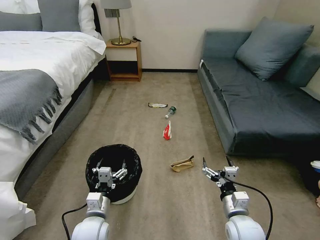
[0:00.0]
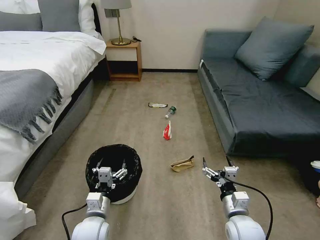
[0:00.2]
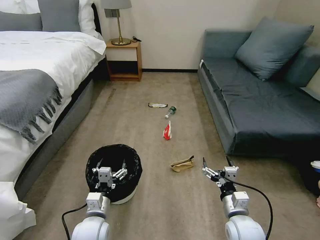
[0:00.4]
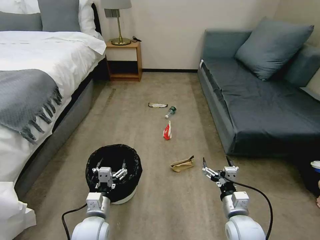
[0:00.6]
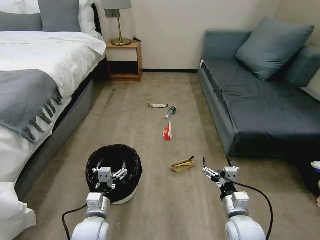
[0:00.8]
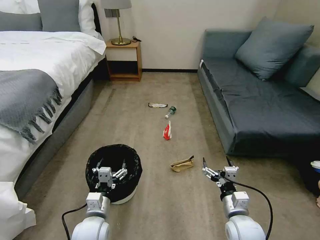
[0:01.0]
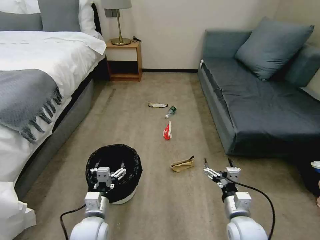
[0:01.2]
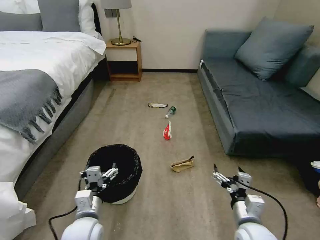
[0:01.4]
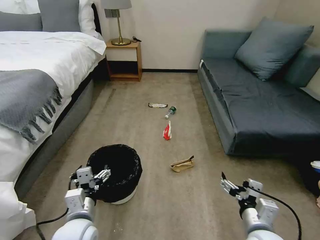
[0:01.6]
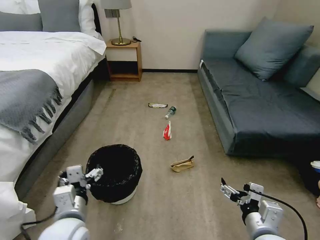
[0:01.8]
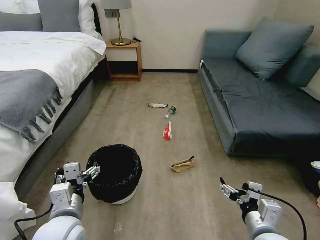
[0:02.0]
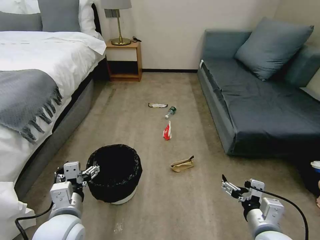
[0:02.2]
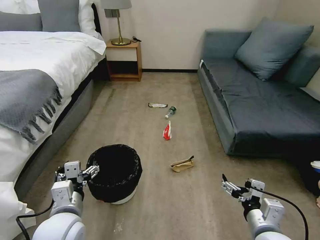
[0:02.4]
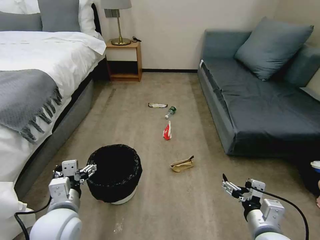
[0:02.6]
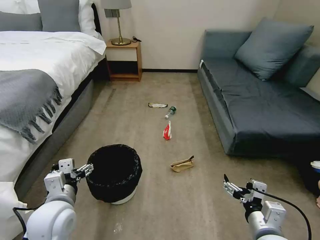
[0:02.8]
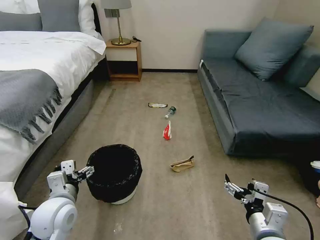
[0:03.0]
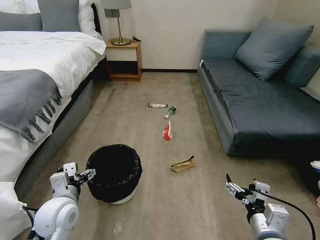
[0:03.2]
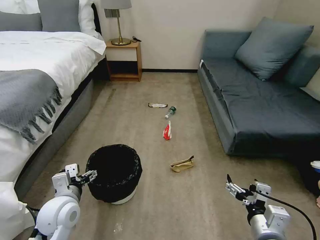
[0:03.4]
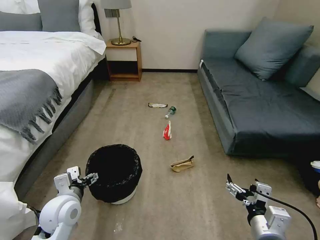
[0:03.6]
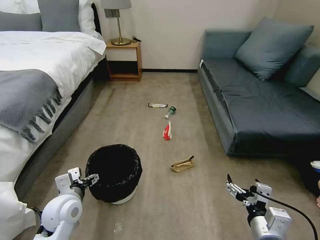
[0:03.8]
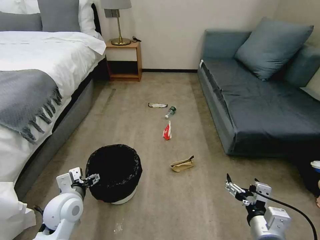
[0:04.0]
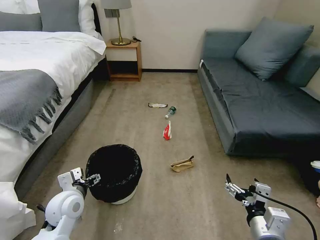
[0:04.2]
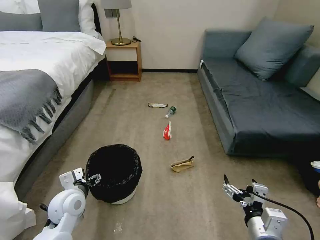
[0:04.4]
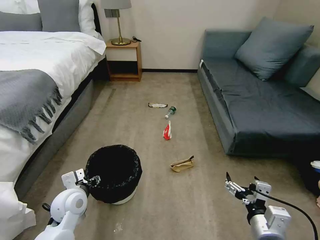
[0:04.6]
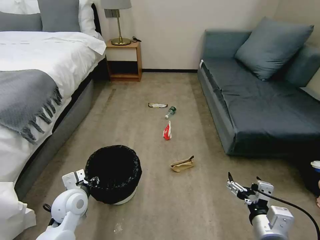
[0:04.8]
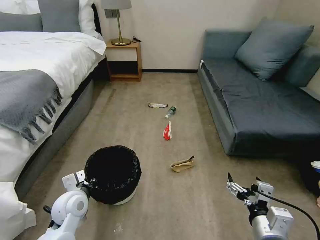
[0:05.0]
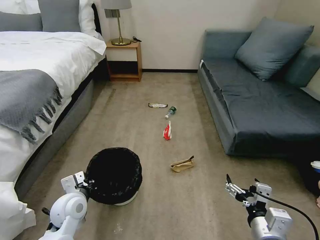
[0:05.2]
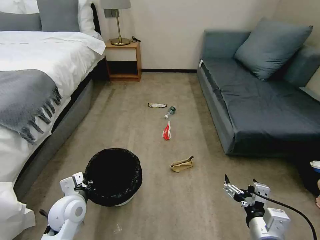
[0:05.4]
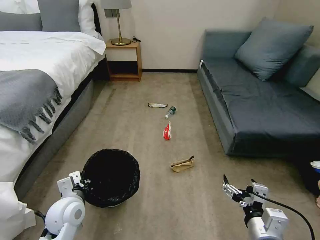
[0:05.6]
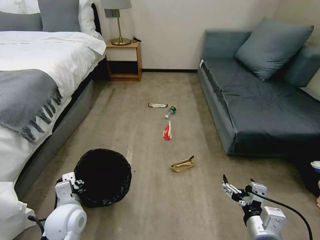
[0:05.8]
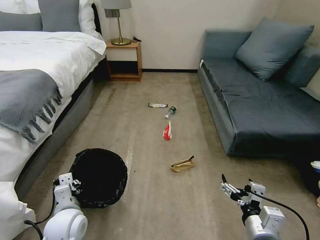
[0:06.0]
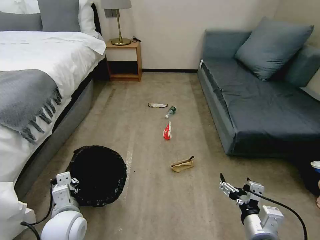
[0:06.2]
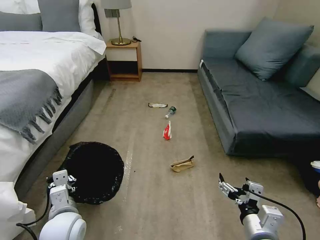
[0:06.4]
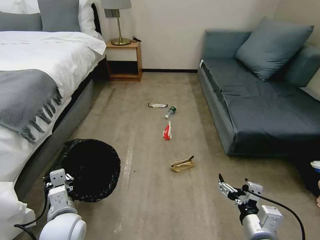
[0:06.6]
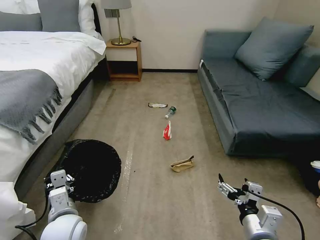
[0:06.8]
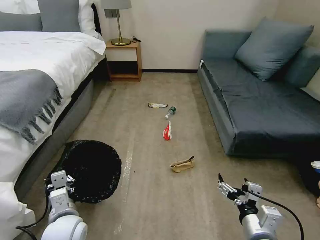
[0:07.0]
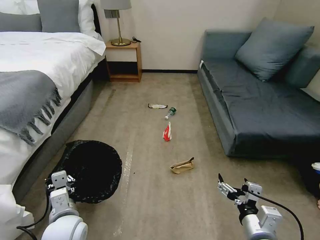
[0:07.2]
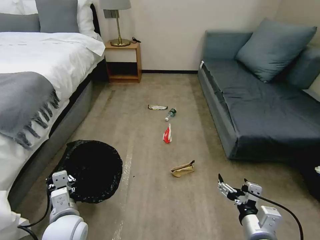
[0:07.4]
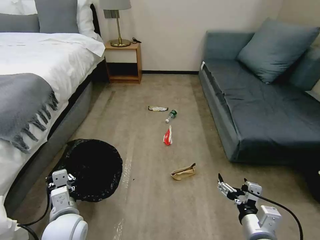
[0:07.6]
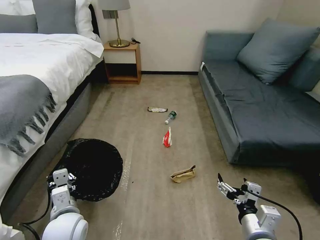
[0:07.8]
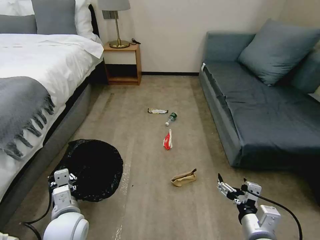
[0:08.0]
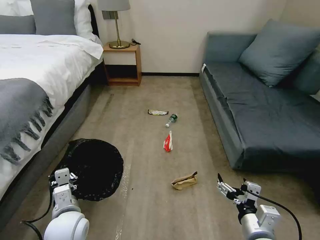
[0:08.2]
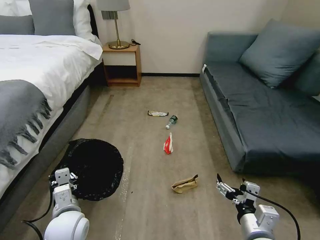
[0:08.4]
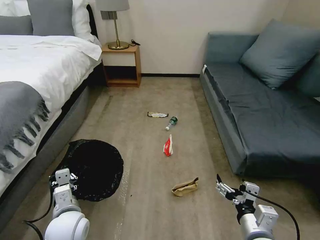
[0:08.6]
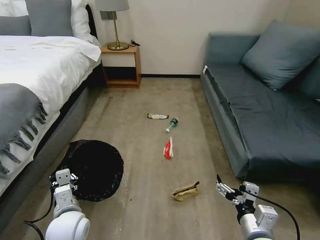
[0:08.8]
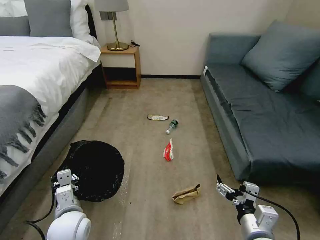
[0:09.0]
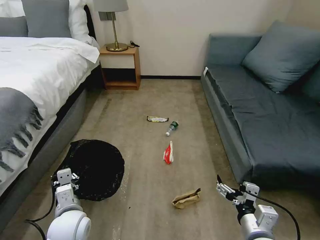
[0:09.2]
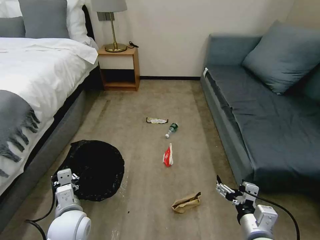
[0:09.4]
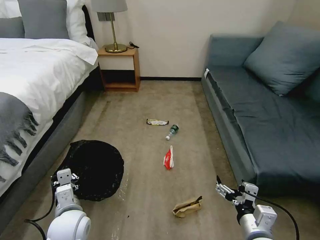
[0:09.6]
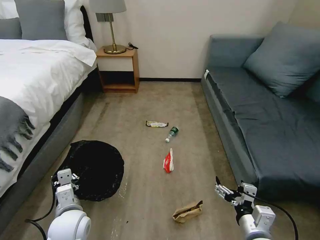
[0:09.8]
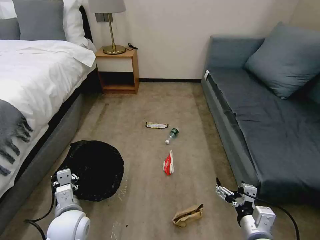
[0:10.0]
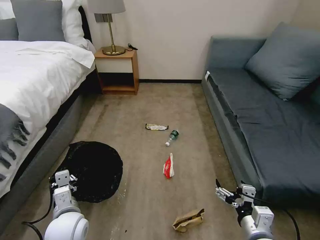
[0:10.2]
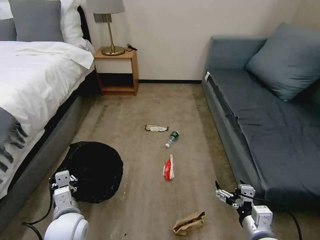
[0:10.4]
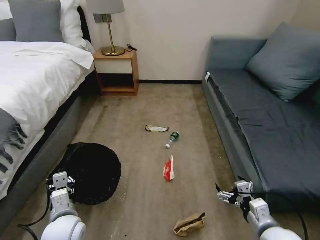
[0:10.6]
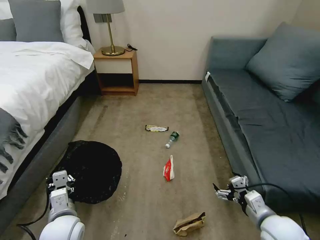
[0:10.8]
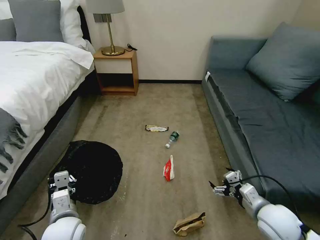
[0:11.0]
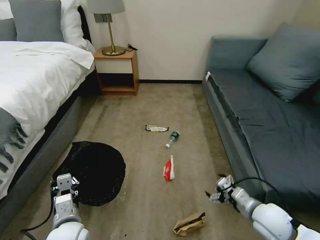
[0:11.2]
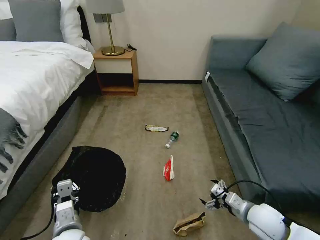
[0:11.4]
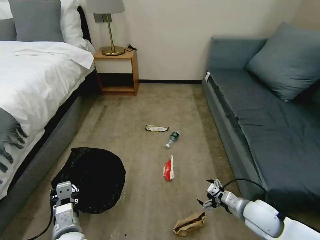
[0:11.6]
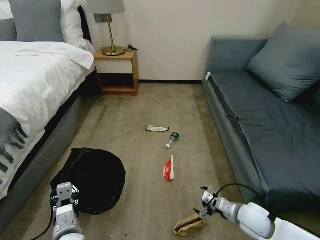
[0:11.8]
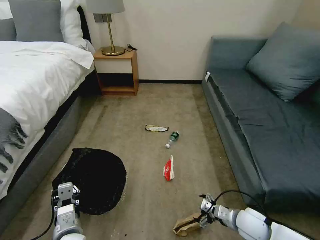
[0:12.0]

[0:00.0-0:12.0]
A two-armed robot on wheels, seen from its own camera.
Task of the whole recording: Pick up the trash bin, then pick up the garbage on the floor and place it into the trash bin.
0:01.6 to 0:03.0: The left gripper shifts approximately 5 cm to the left.
0:03.0 to 0:04.4: The left gripper ends up roughly 5 cm from where it was.
0:04.4 to 0:06.0: The left gripper goes some 5 cm backward, and closes up.
0:06.0 to 0:07.6: The grippers move only a little.
0:10.4 to 0:12.0: The left gripper moves approximately 5 cm. Meanwhile the right gripper shifts approximately 15 cm forward and downward.

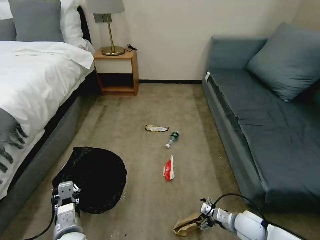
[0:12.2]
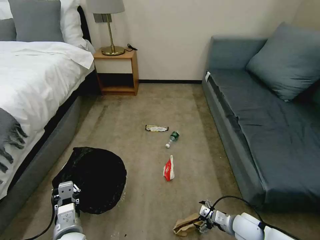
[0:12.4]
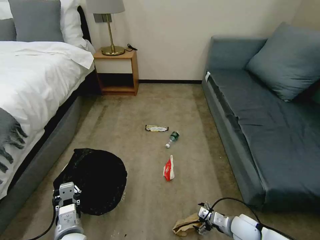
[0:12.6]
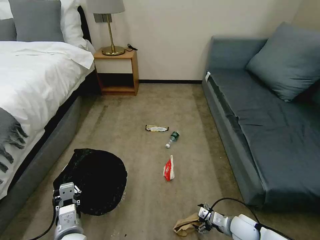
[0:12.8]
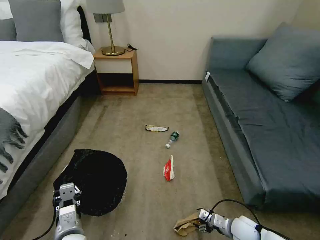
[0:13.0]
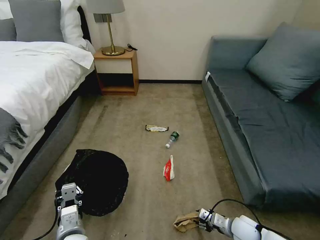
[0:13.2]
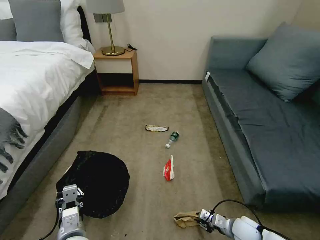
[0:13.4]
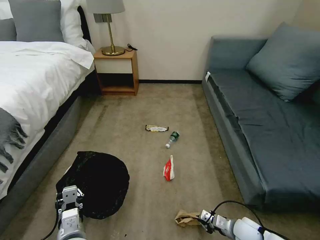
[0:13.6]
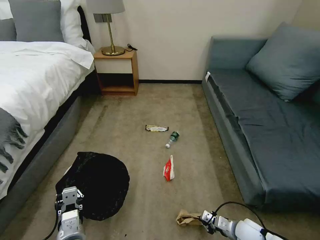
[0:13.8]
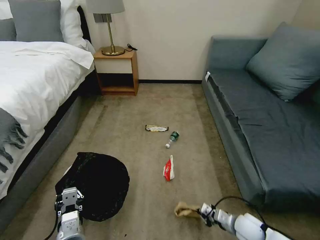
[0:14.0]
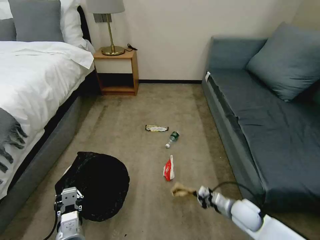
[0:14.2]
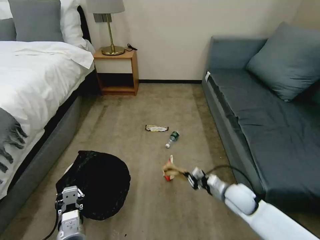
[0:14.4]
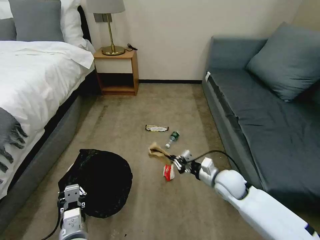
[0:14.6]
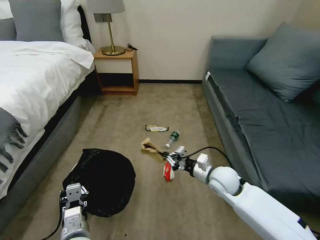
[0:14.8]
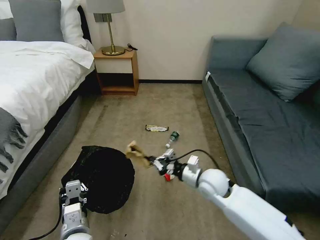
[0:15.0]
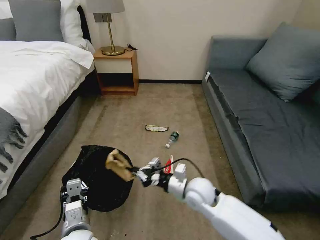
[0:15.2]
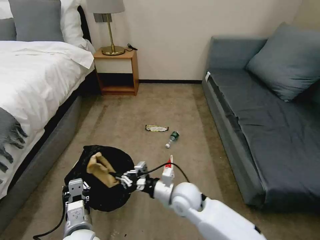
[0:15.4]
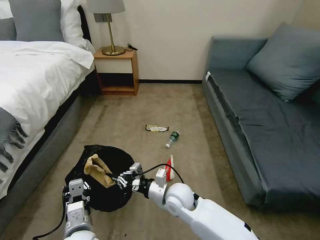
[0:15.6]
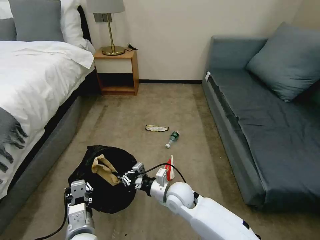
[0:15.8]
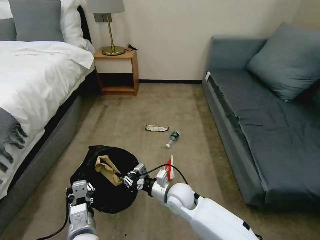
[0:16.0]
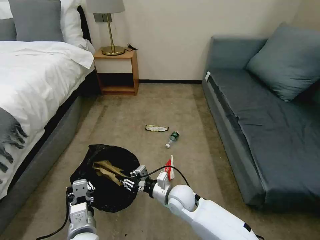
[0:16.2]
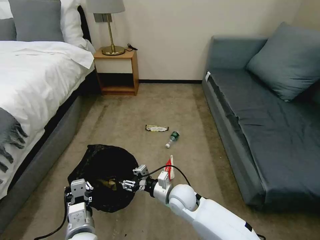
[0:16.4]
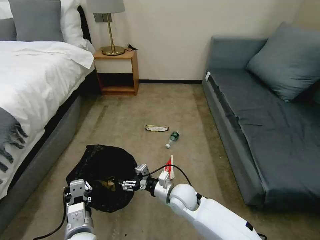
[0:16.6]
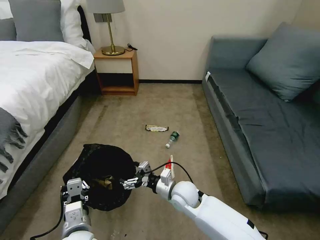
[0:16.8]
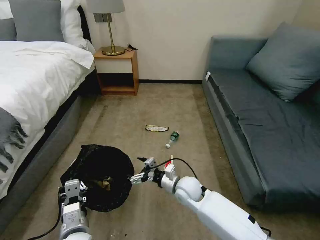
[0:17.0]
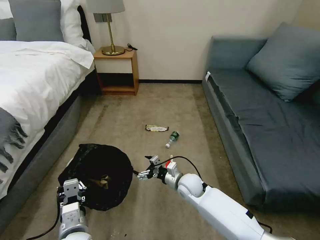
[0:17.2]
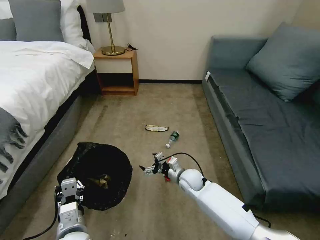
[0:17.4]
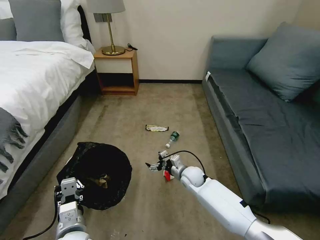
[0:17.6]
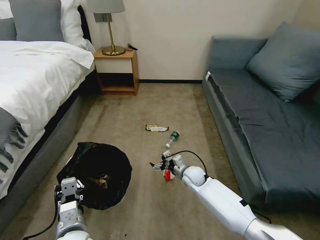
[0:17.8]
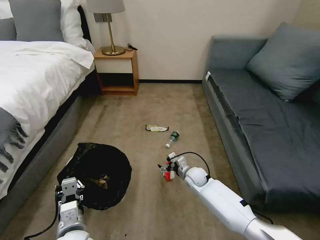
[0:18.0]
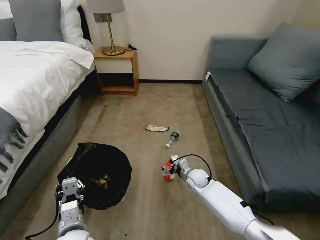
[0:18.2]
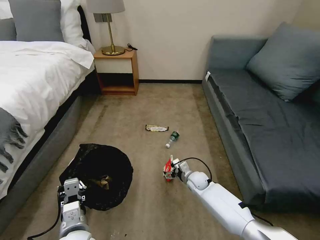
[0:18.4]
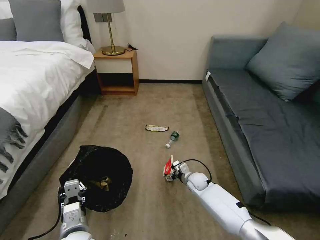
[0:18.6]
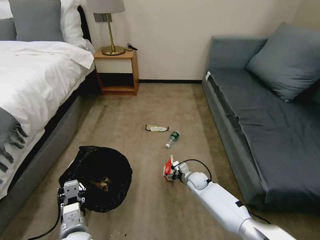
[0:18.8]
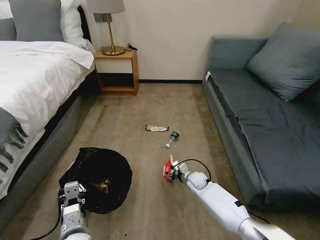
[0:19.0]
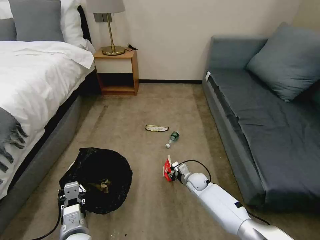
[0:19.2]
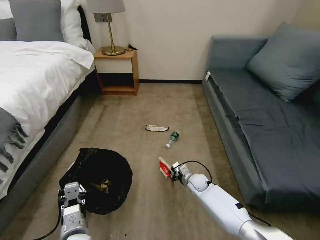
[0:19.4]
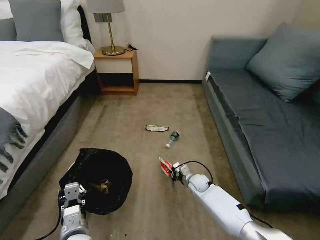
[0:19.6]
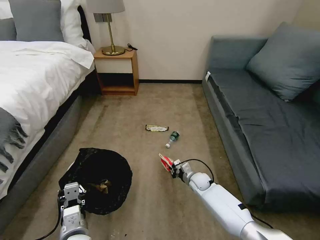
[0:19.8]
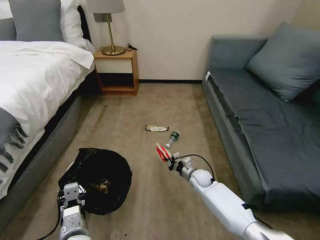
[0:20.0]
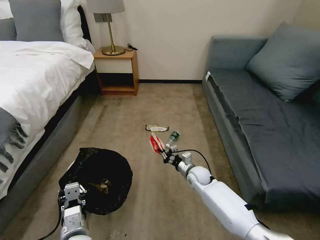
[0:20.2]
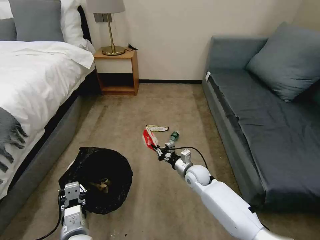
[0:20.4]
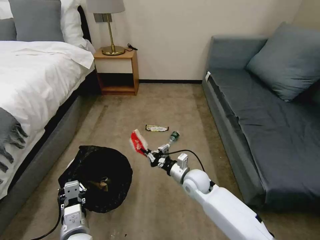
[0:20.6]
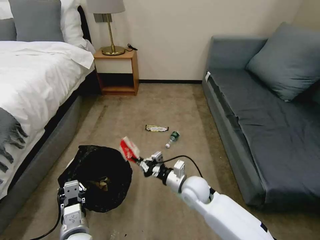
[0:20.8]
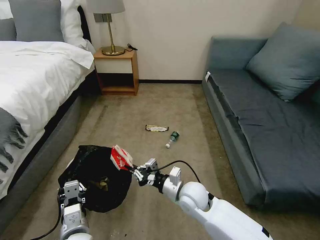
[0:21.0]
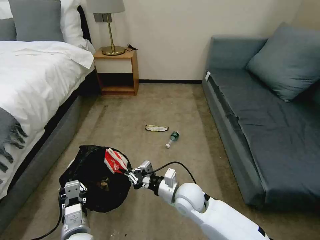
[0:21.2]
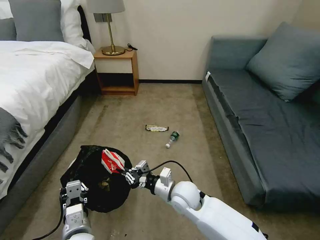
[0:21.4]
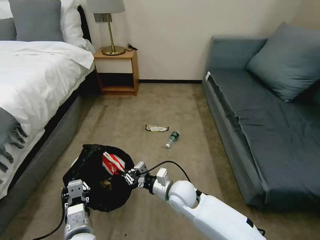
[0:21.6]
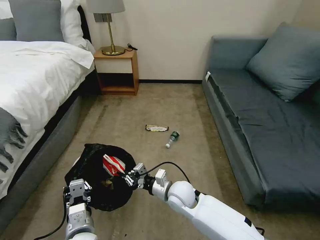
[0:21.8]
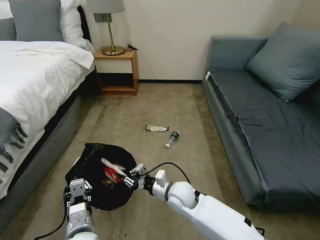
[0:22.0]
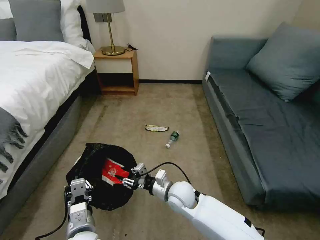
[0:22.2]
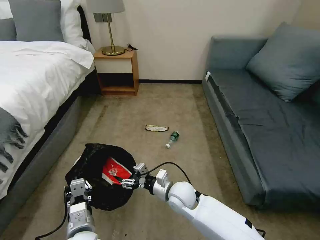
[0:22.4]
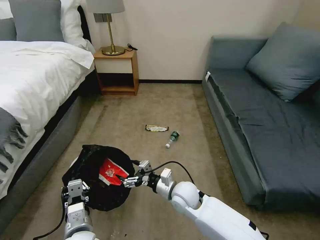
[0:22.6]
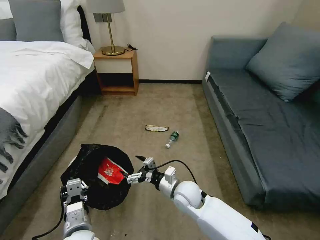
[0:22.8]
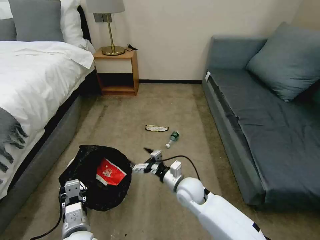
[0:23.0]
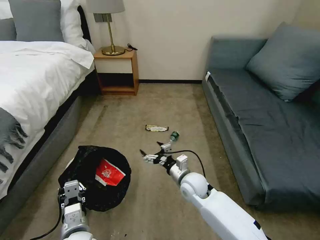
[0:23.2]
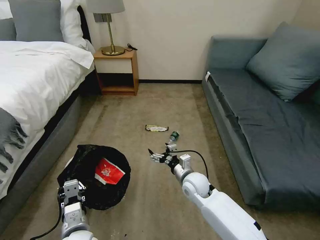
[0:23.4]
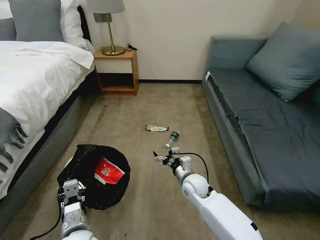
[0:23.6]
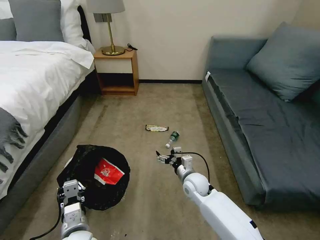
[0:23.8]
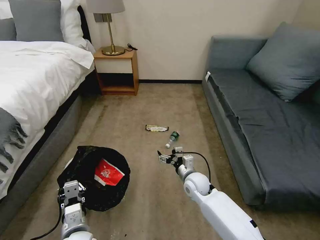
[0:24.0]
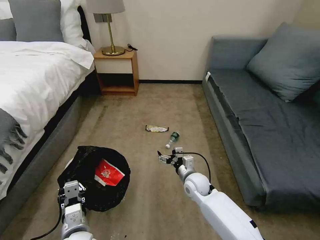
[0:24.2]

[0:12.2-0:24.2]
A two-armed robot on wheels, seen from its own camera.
Task of the whole recording: Pick up the trash bin, then pick up the garbage on the floor and place it into the trash bin.
0:12.2 to 0:13.8: The right gripper closes.
0:13.8 to 0:15.2: The right gripper heads to the left, upward and forward, covering some 25 cm.
0:15.2 to 0:16.6: The right gripper changes place by about 5 cm, and opens.
0:16.6 to 0:18.2: The right gripper moves forward, to the right and downward, roughly 15 cm.
0:18.2 to 0:19.8: The right gripper closes up.
0:19.8 to 0:21.2: The right gripper heads upward, backward and to the left, covering some 20 cm.
0:21.2 to 0:22.6: The right gripper opens its fingers.
0:22.6 to 0:24.2: The right gripper heads to the right and forward, covering roughly 10 cm.
